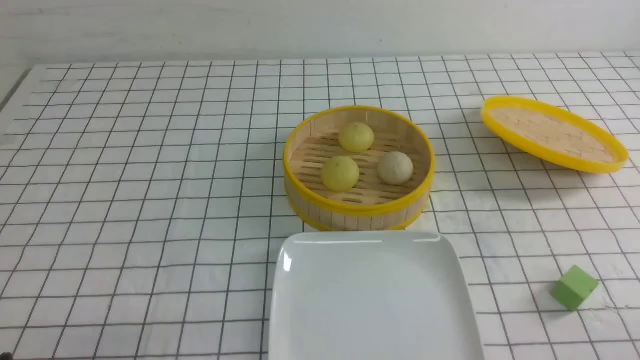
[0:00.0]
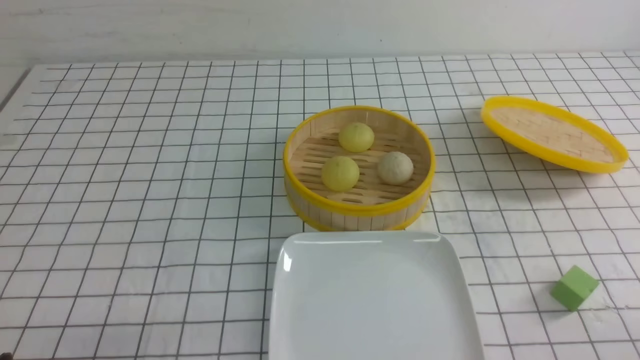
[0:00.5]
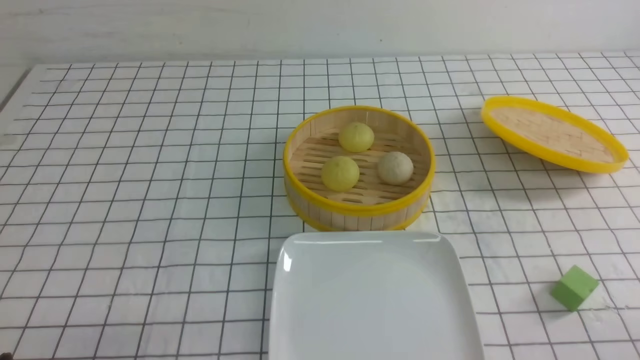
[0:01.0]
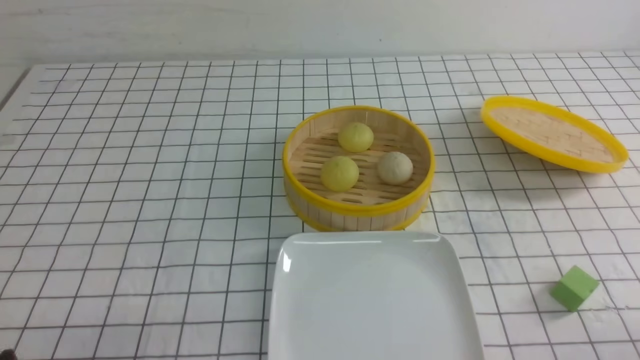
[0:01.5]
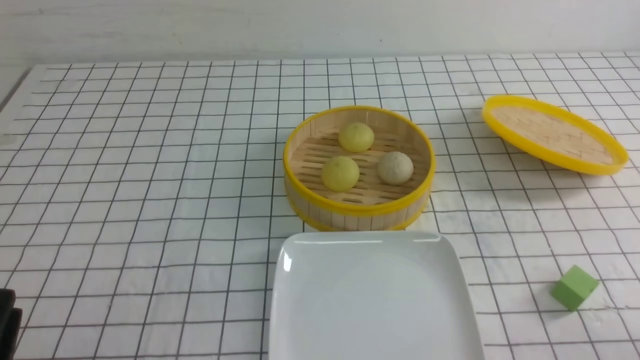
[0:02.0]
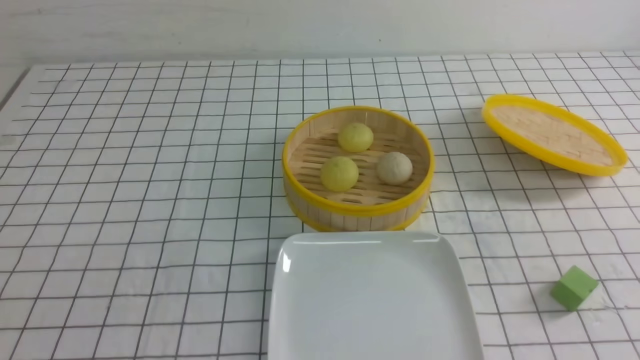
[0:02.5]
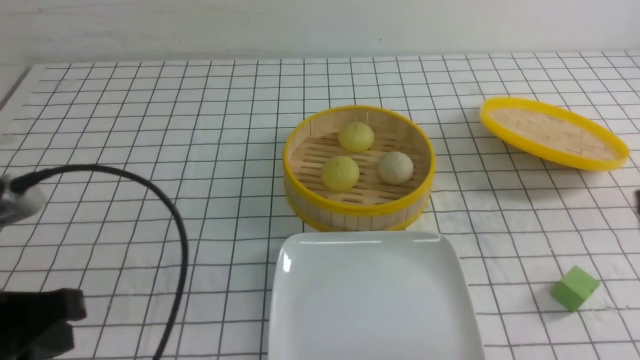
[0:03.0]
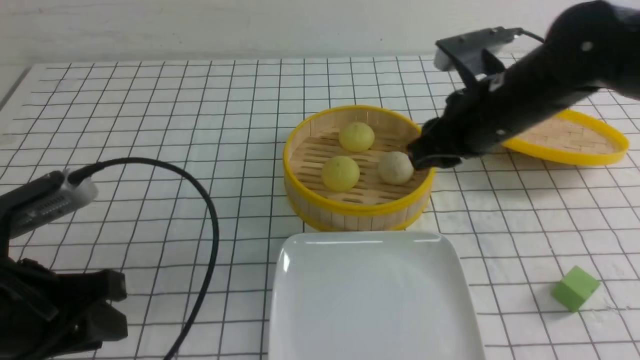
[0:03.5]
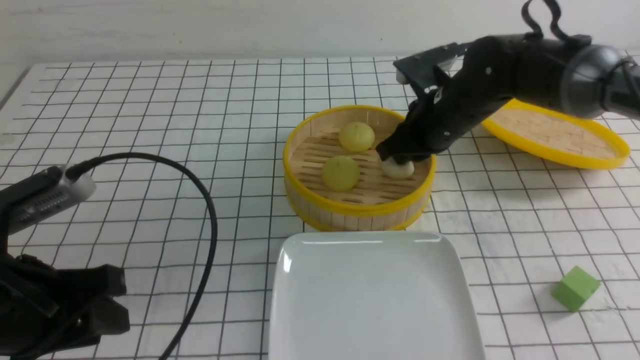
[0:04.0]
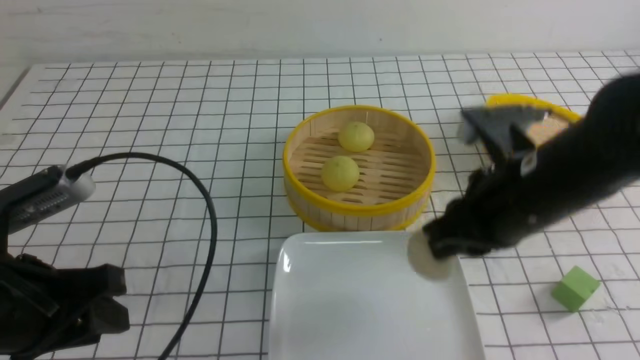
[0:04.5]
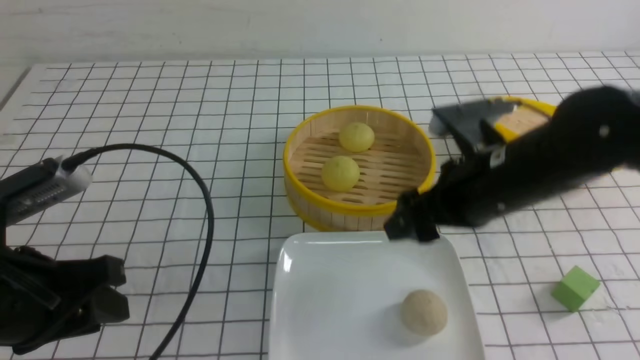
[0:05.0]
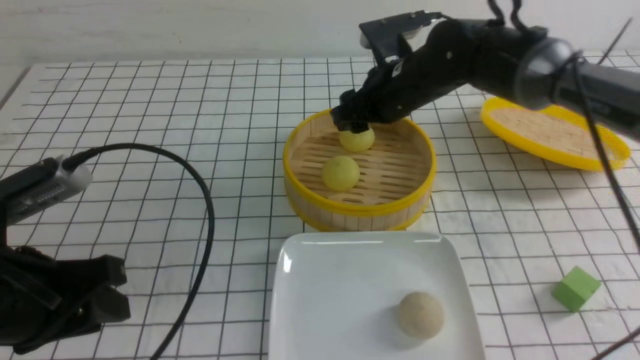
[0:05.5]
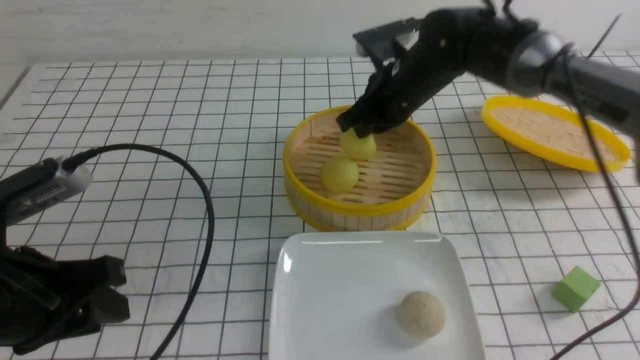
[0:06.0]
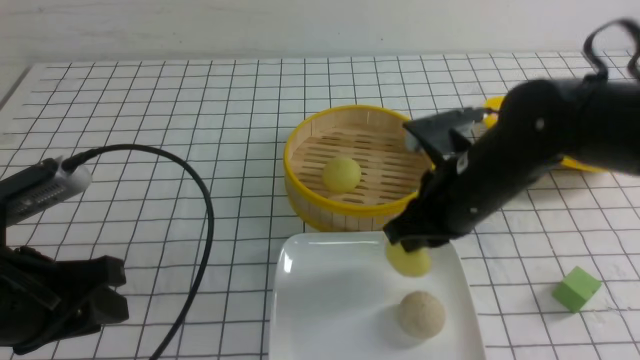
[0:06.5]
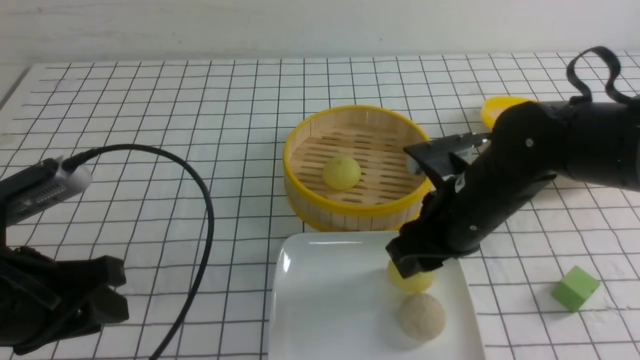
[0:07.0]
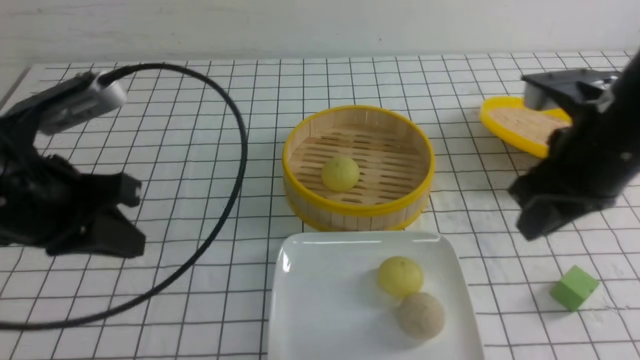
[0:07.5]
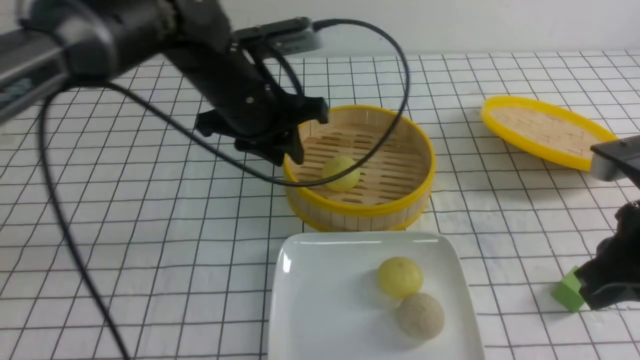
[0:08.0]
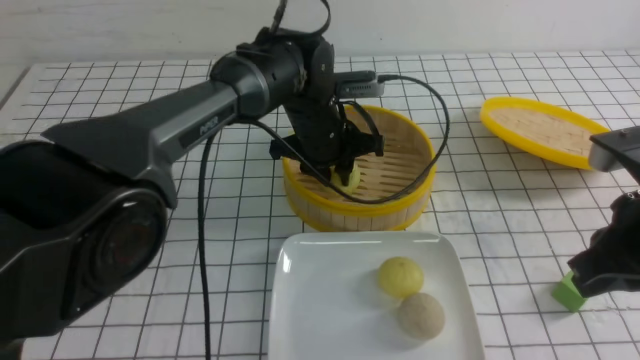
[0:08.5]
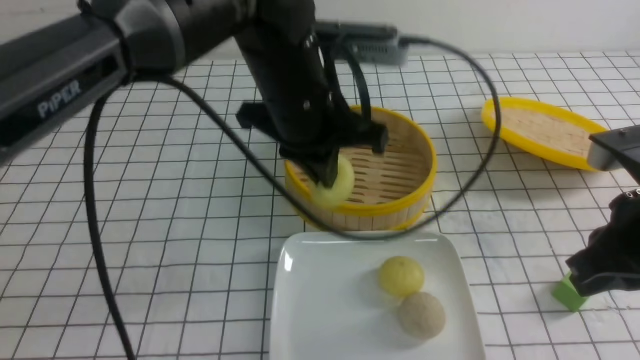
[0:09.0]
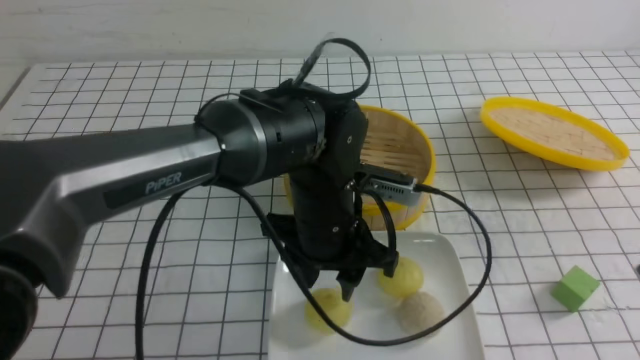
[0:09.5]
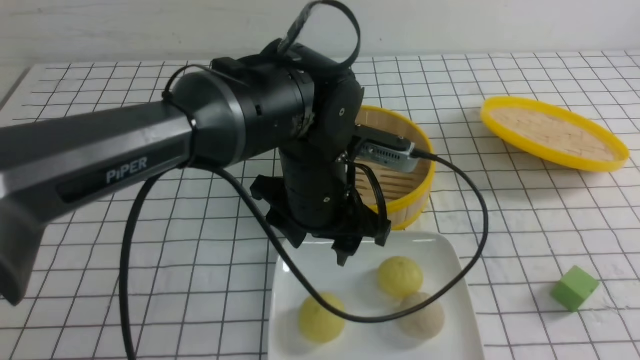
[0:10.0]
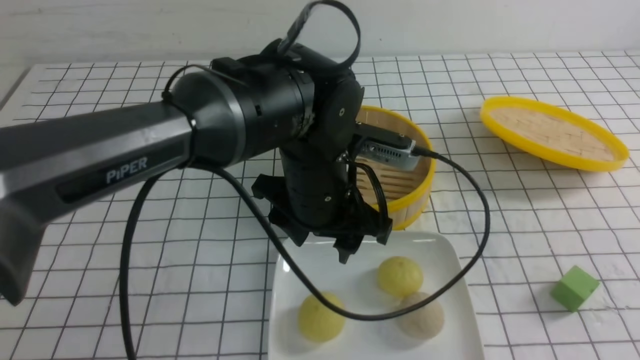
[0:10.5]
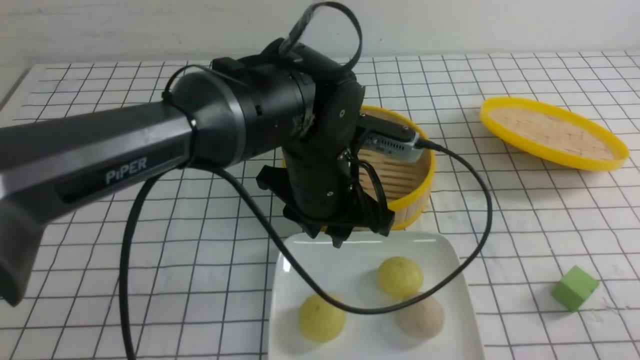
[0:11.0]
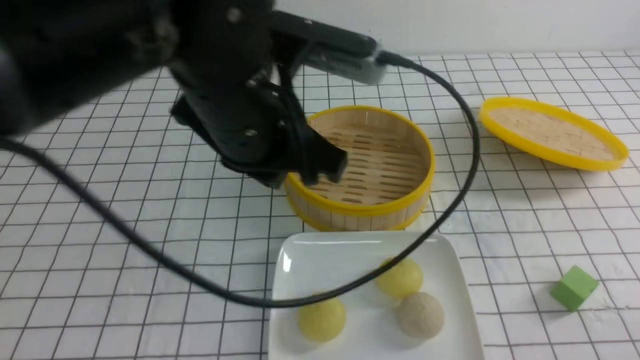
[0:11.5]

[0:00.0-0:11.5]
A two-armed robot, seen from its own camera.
Step, 0:00.0 to 0:03.5: use the right arm to grab the steamed stuffed bun that is closest to it.
Step, 0:04.0 to 0:04.5: use the right arm to put the steamed stuffed bun into the plate.
Step, 0:05.0 to 0:05.5: use the right arm to grab the steamed stuffed bun that is closest to it.
Step, 0:06.0 to 0:07.0: use the right arm to put the steamed stuffed bun into the plate.
Step, 0:07.5 to 0:08.5: use the left arm to grab the steamed stuffed bun that is closest to it.
0:02.0 to 0:04.0: The left gripper shifts approximately 10 cm forward and upward, and closes and opens again. The right gripper moves forward and to the left, approximately 40 cm.
0:04.0 to 0:06.0: The right gripper travels backward and back again, some 15 cm each way, and opens, then closes once more.
0:06.0 to 0:07.5: The left gripper moves forward, roughly 5 cm, and closes. Meanwhile the right gripper heads backward and to the right, covering roughly 20 cm.
0:07.5 to 0:09.5: The left gripper shifts approximately 20 cm to the right, and opens its fingers, while the right gripper moves backward and to the right, approximately 15 cm, and closes its fingers.
0:09.5 to 0:11.5: The right gripper travels downward and backward by approximately 20 cm; the left gripper moves upward and to the left, some 15 cm, and closes.

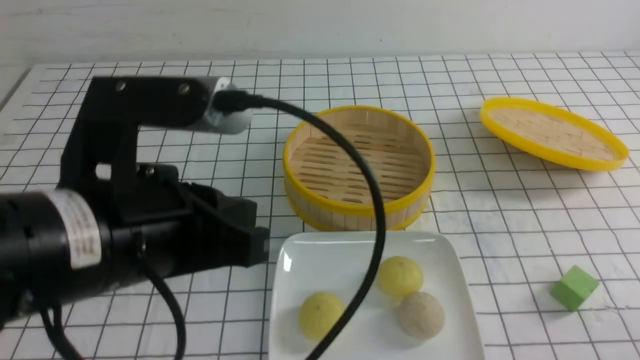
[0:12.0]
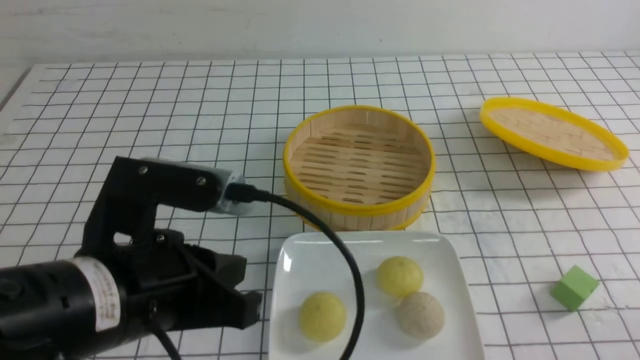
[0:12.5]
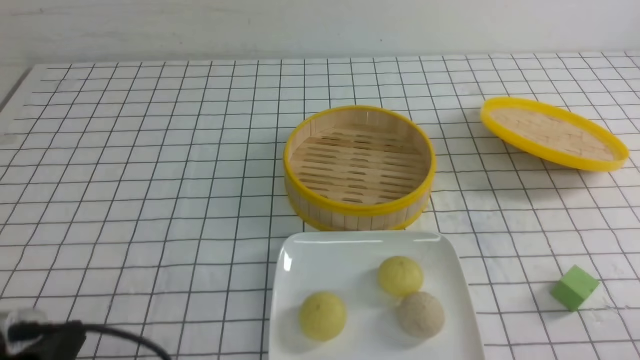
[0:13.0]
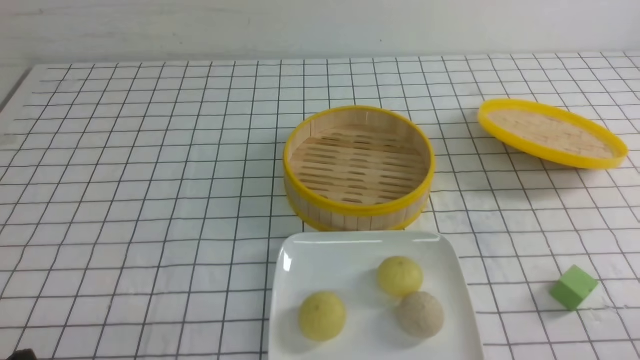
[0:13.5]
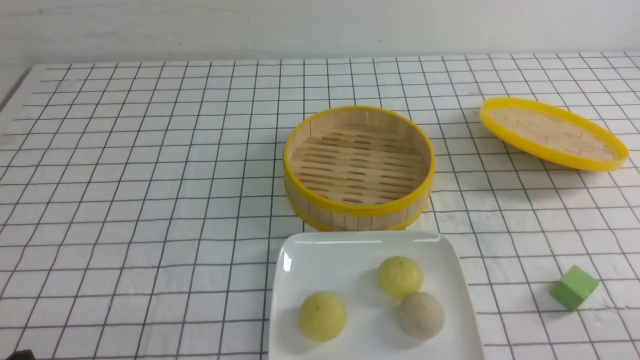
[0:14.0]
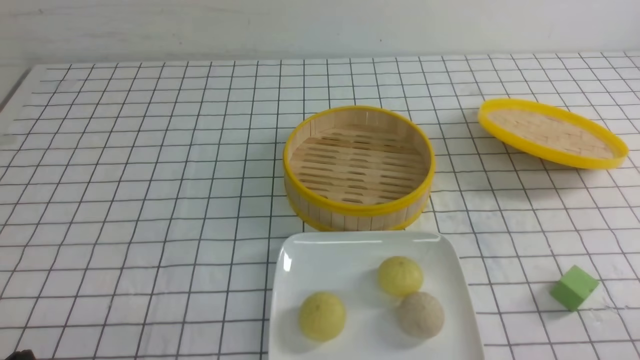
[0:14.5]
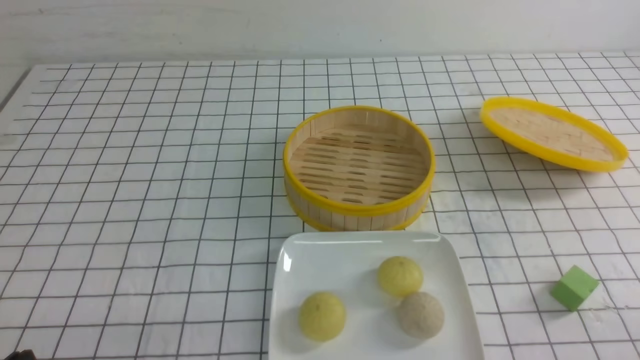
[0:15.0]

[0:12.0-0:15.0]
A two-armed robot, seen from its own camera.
0:12.0 to 0:13.5: The left gripper goes some 25 cm downward, to the left and backward.
0:13.5 to 0:15.0: The two grippers keep their place.
